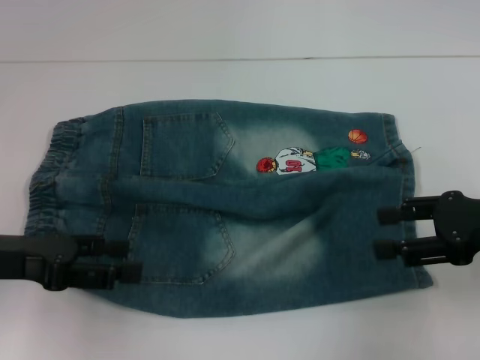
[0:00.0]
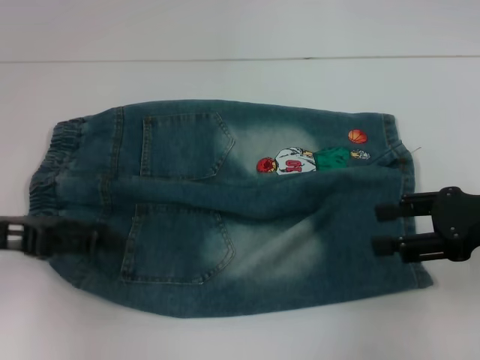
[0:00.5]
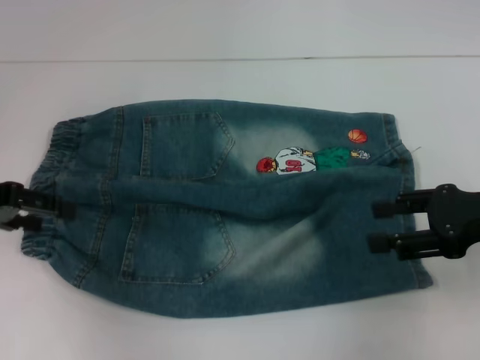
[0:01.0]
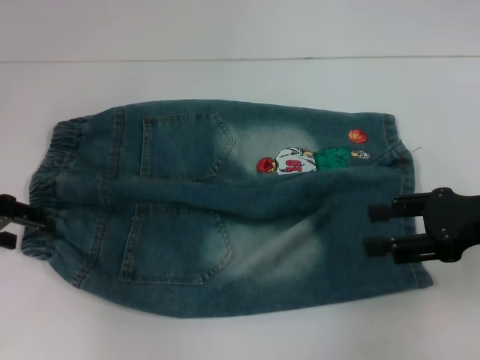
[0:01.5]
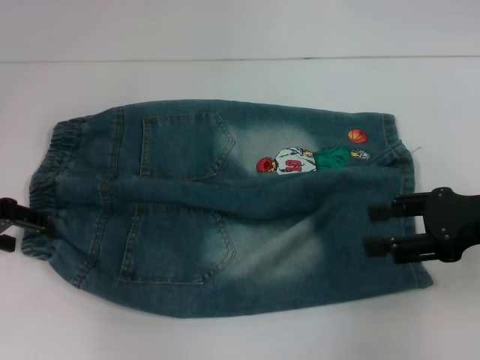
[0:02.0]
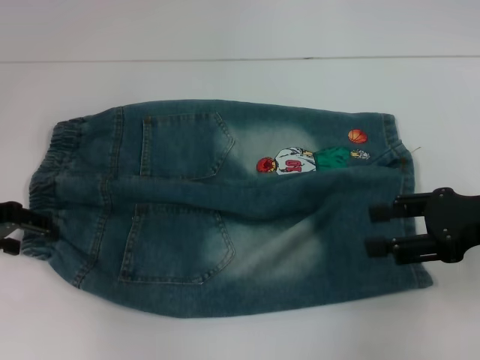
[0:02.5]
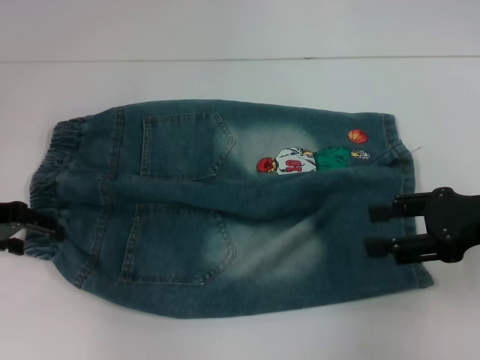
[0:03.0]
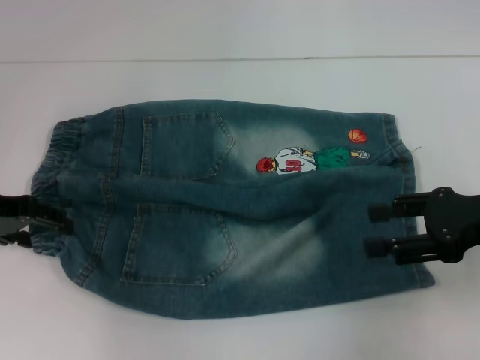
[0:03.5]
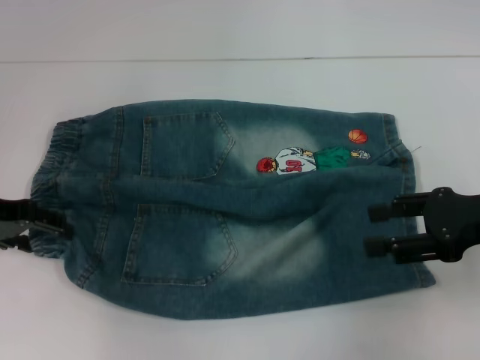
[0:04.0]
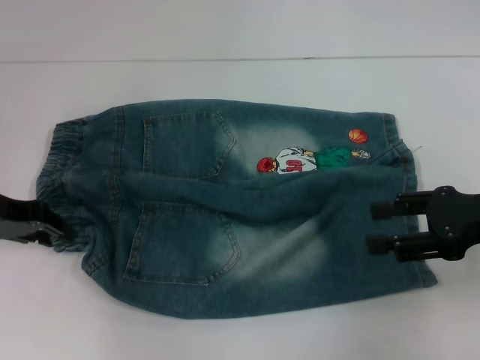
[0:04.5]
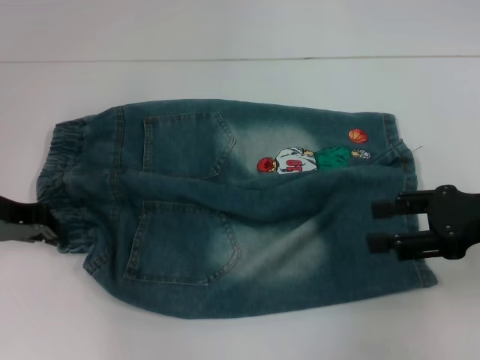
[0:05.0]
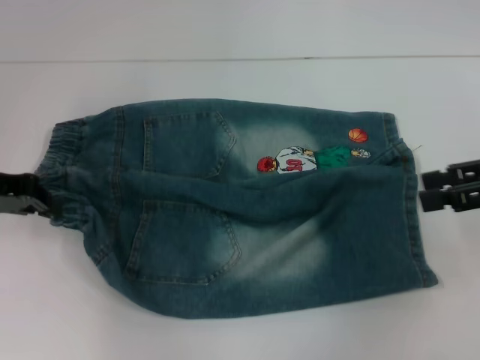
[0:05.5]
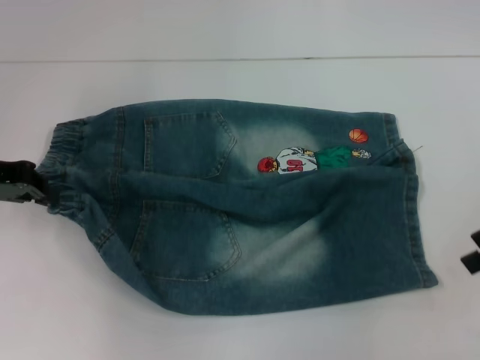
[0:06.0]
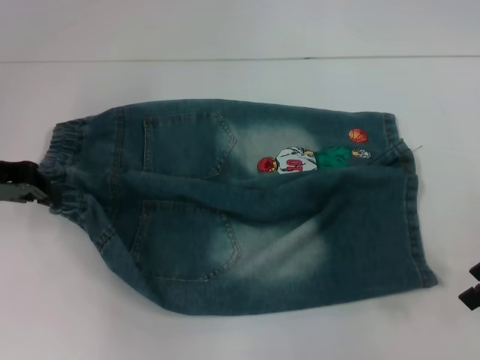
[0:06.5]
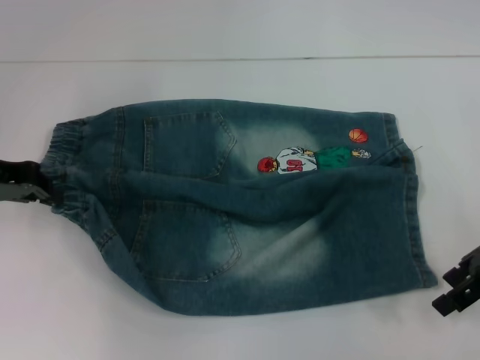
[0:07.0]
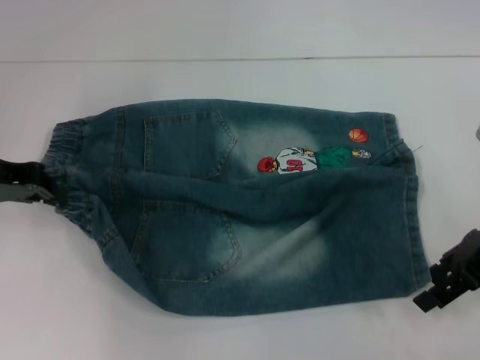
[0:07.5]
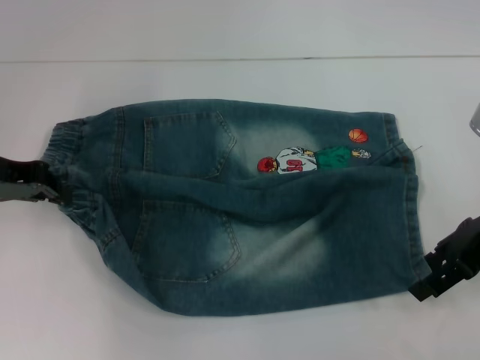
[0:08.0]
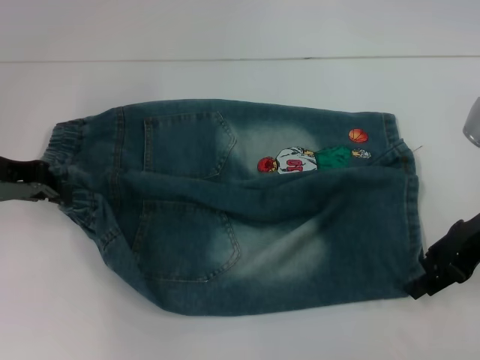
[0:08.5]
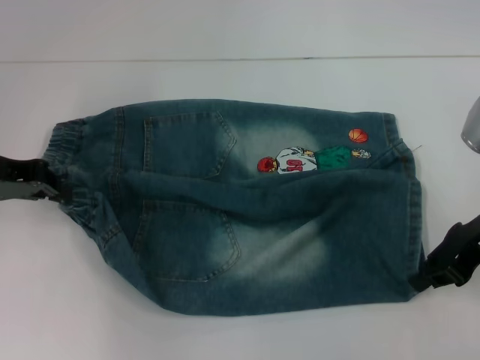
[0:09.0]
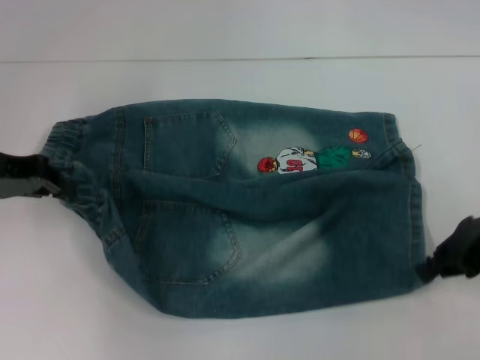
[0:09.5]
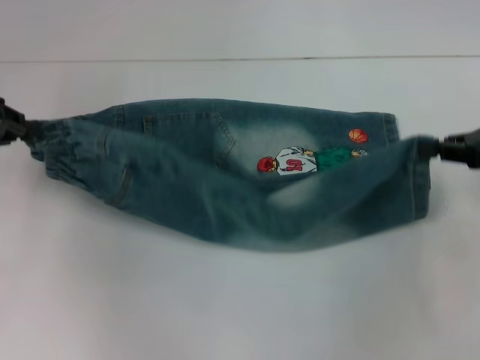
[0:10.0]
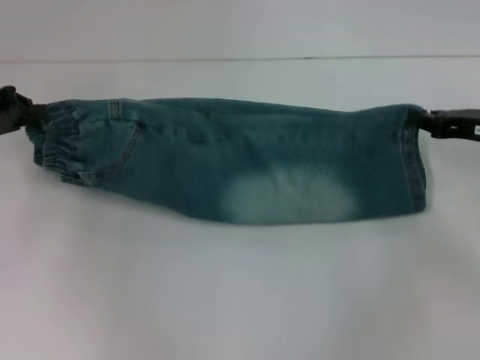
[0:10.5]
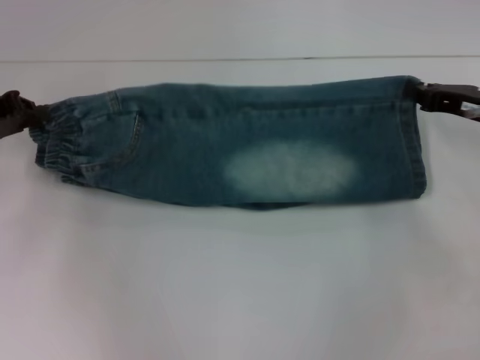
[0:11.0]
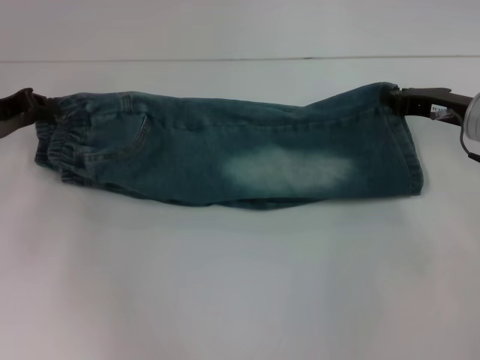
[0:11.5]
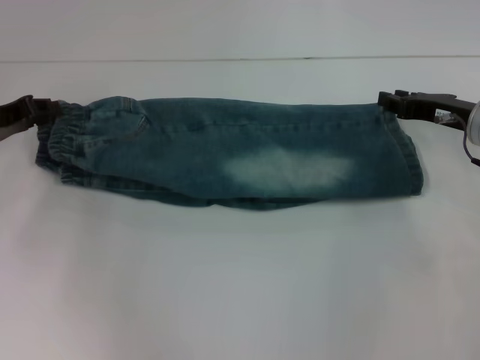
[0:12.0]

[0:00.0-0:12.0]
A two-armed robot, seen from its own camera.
Step, 0:00.0 to 0:05.0: Hold the lower left waistband with your left hand.
Step, 0:05.5 to 0:09.0: Grab the lower right pant leg with your right hand.
Step, 0:09.5 to 0:11.5: Fold upward with your right hand.
0:00.0 to 0:02.0: The left gripper shifts some 10 cm forward.
0:02.0 to 0:04.0: The grippers make only small movements.
0:04.0 to 0:06.0: The left gripper closes, while the right gripper travels upward by some 5 cm.
0:06.0 to 0:08.0: The right gripper heads to the left, covering roughly 5 cm.
0:08.0 to 0:10.0: The right gripper travels to the right by about 5 cm, and closes.
0:10.0 to 0:12.0: The left gripper travels downward by some 5 cm. Meanwhile the right gripper goes approximately 10 cm downward, to the left and forward.

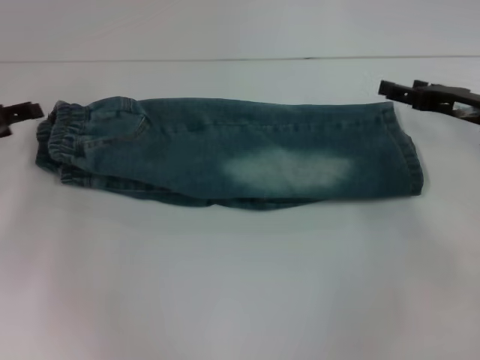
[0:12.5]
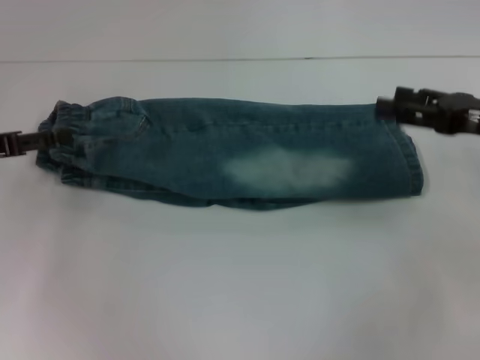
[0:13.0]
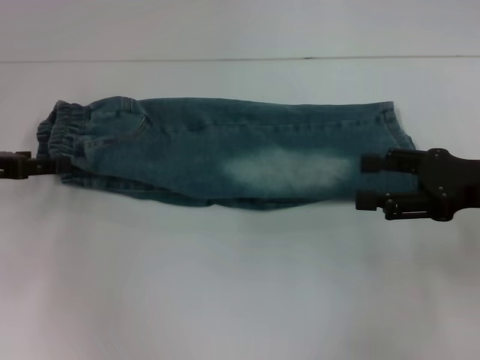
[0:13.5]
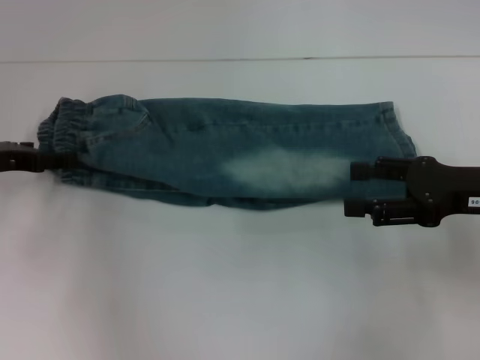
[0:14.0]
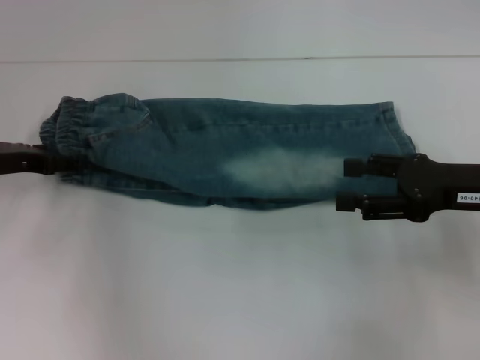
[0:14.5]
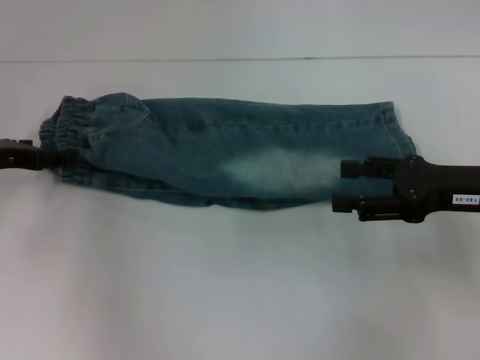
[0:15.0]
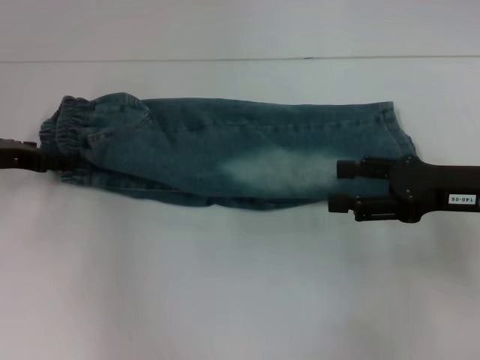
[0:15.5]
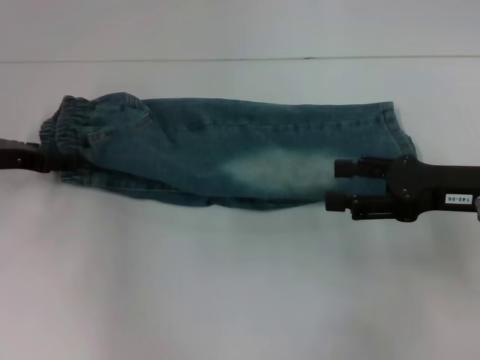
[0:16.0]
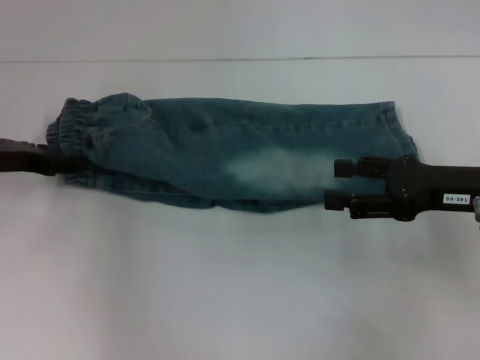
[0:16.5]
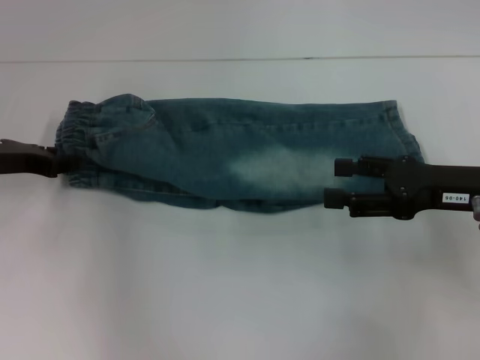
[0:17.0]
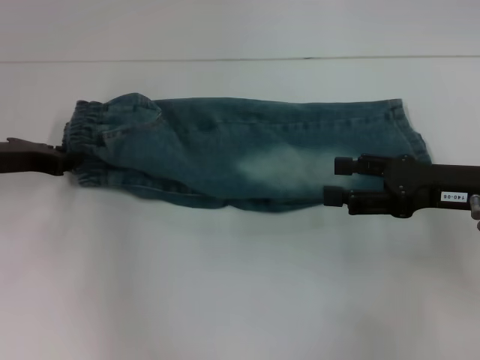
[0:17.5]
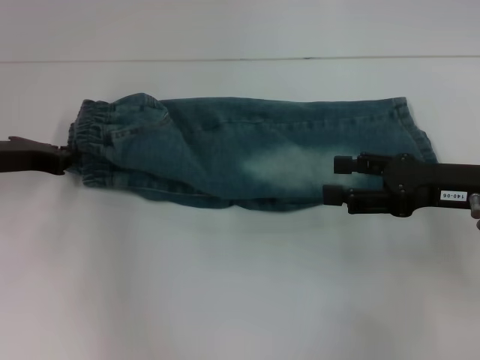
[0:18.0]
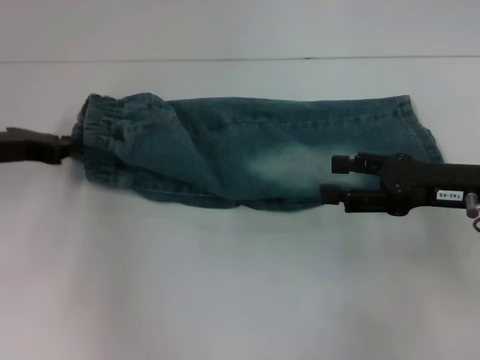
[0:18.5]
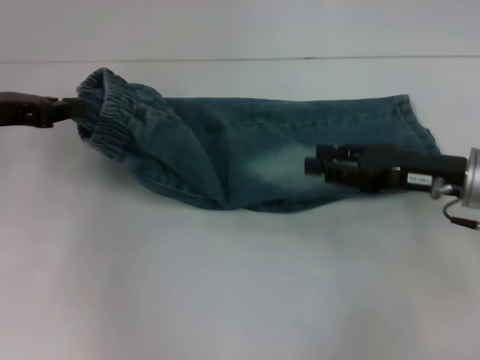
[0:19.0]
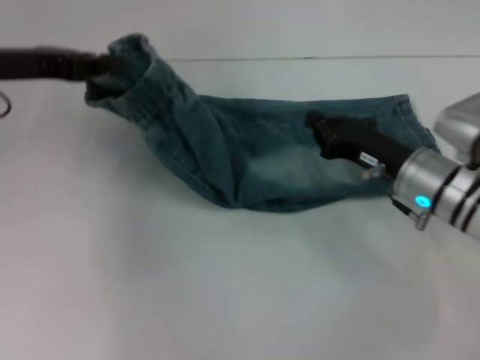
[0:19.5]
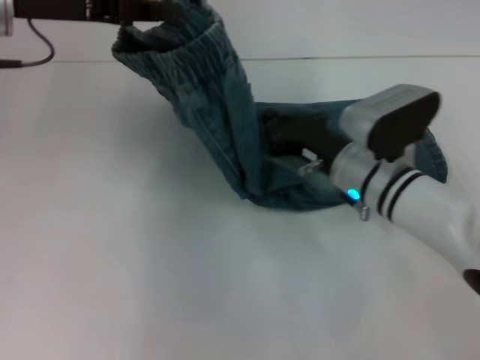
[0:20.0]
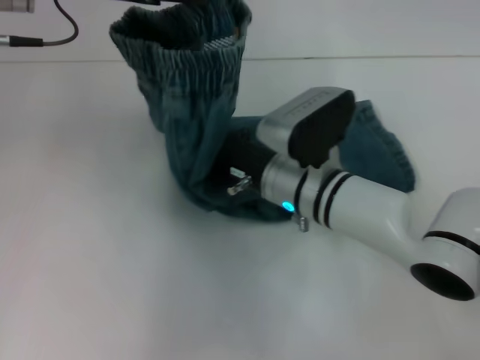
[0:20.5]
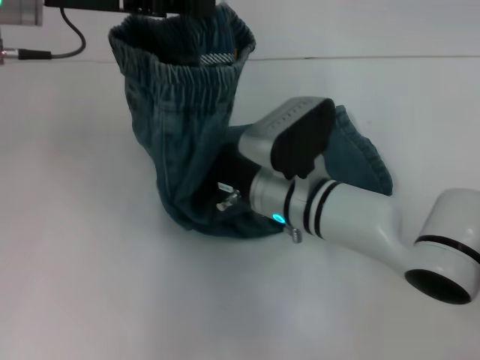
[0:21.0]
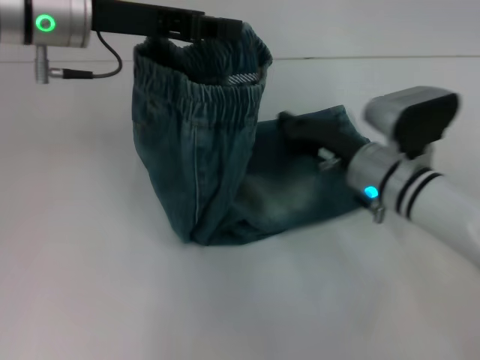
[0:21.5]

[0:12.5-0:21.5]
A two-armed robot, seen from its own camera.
Step, 0:12.5 to 0:18.0: Hold the waistband with your left hand.
Step, 0:18.5 to 0:21.0: Press the middle of the pants with your right hand.
0:12.5 to 0:14.5: The left gripper opens up; the right gripper moves backward, roughly 10 cm.
0:14.5 to 0:17.0: The left gripper closes its fingers.
0:17.0 to 0:19.5: The right gripper heads downward and to the left, covering roughly 10 cm, and closes its fingers. The left gripper shifts roughly 10 cm upward, and closes.
0:19.5 to 0:21.5: The left gripper travels to the right by about 10 cm. Meanwhile the right gripper reaches about 15 cm to the left, then returns.

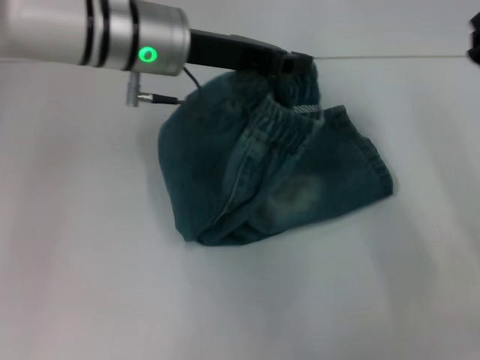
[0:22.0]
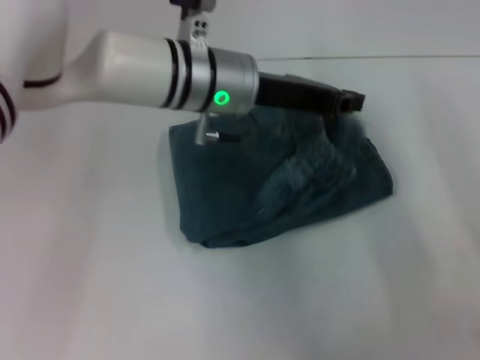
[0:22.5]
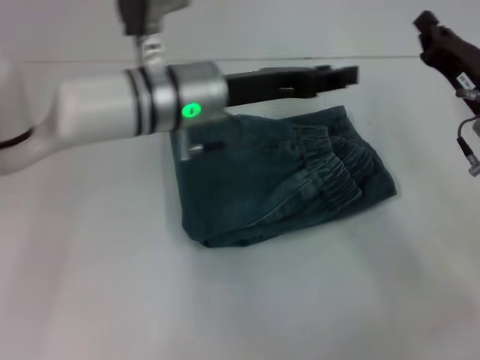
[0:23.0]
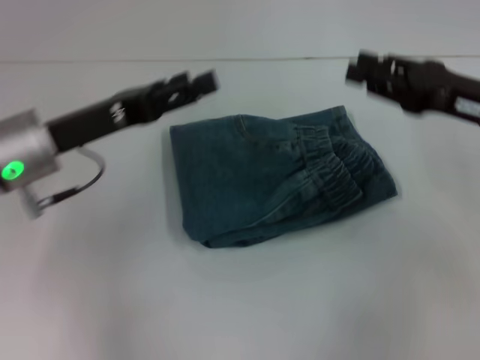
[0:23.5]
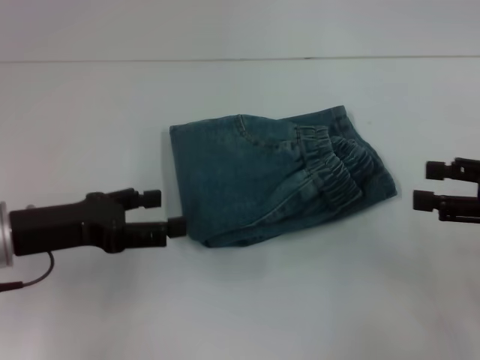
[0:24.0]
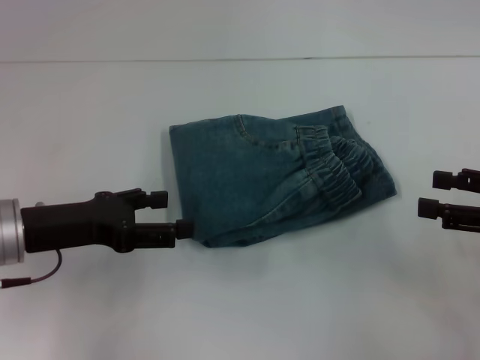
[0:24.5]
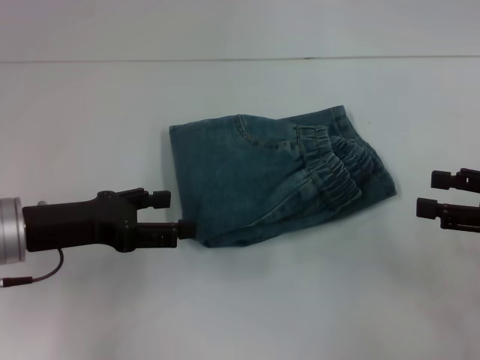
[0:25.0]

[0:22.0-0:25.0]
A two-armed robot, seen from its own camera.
0:22.0 to 0:23.5: The right gripper is displaced upward by approximately 5 cm. The left gripper is displaced to the left, backward and downward by roughly 15 cm, and opens its fingers.
0:23.5 to 0:25.0: The right gripper heads backward and to the right, covering approximately 10 cm, and opens; the left gripper changes place by approximately 5 cm.
